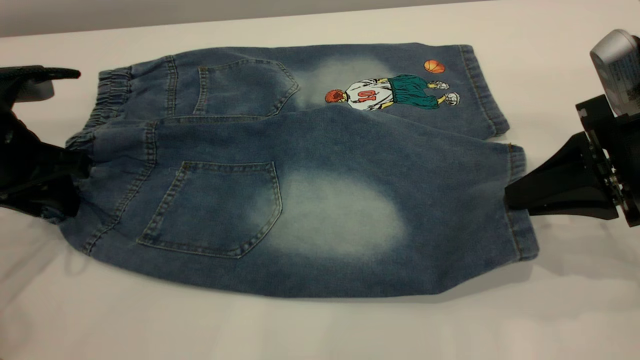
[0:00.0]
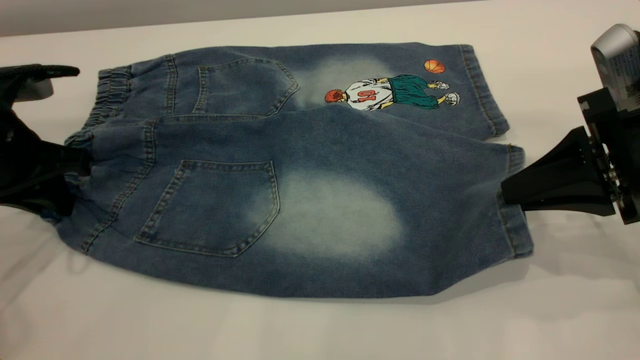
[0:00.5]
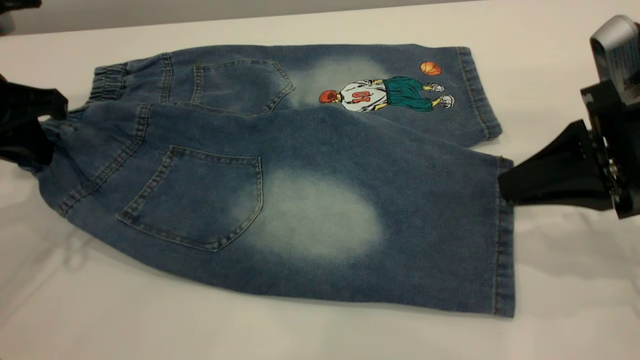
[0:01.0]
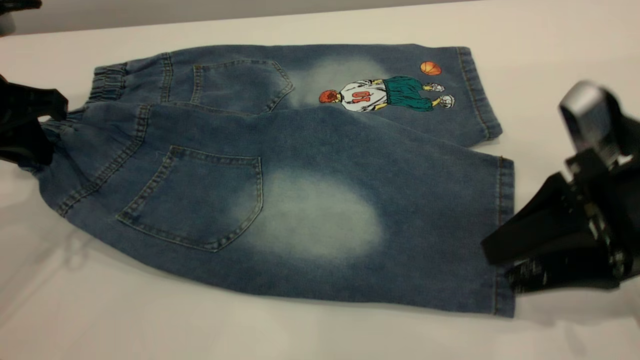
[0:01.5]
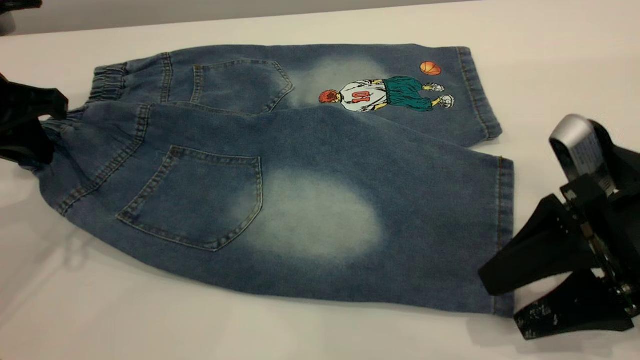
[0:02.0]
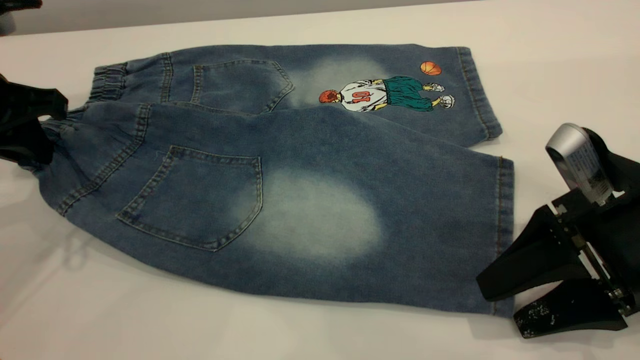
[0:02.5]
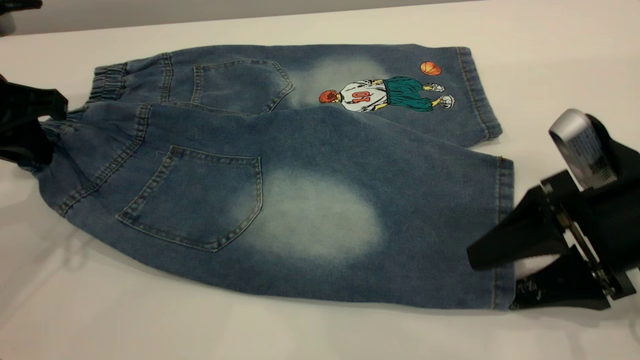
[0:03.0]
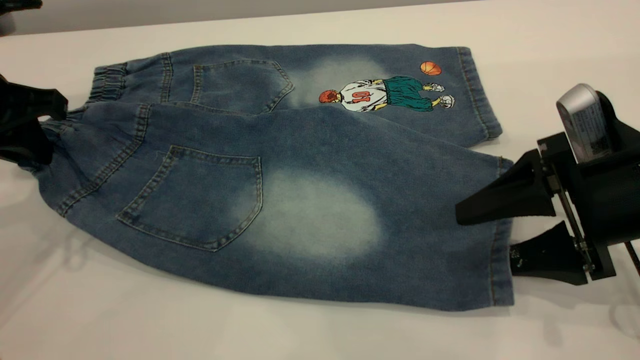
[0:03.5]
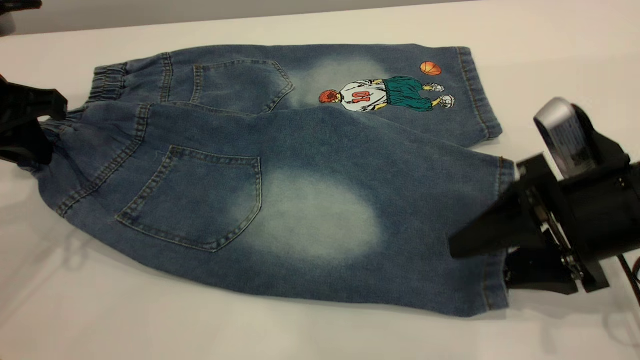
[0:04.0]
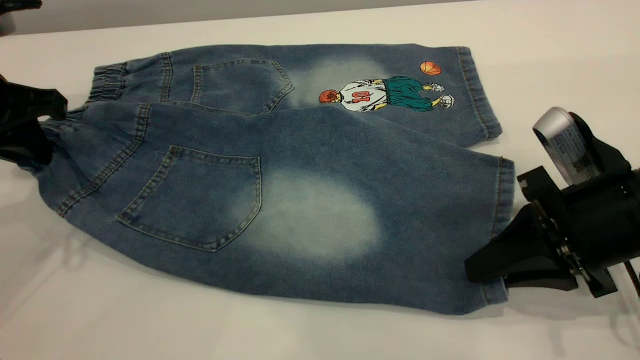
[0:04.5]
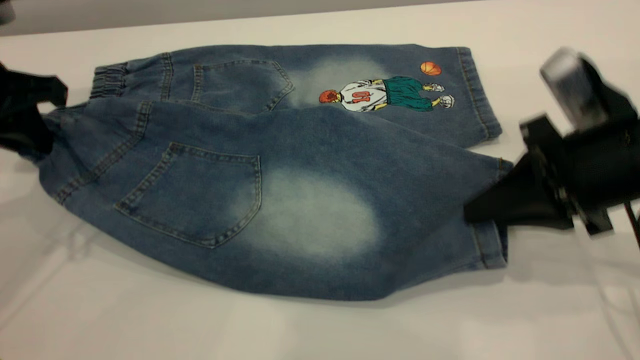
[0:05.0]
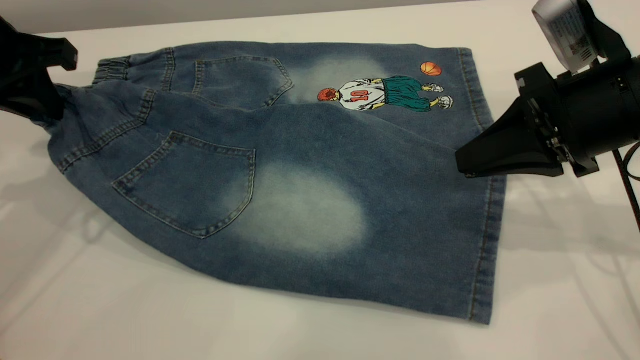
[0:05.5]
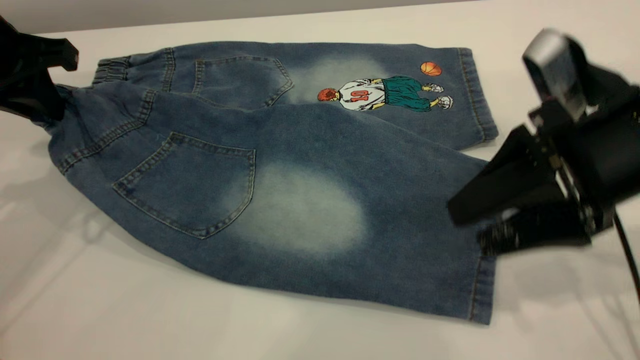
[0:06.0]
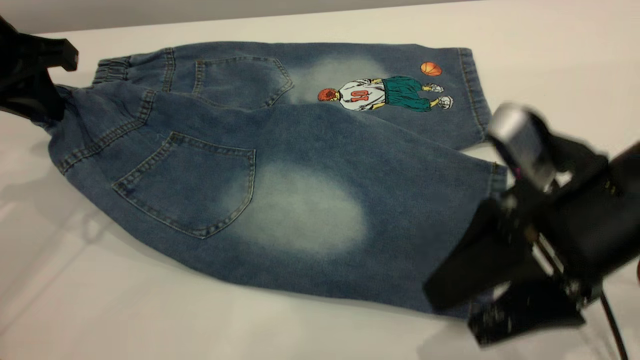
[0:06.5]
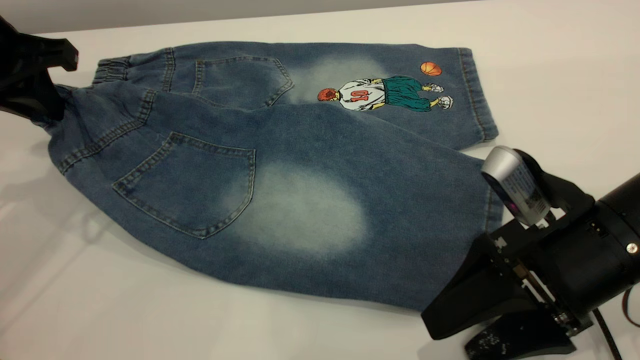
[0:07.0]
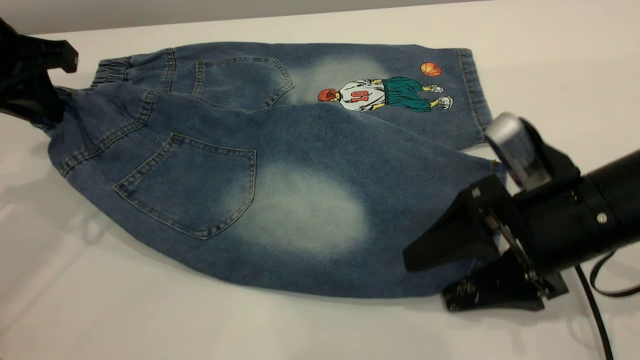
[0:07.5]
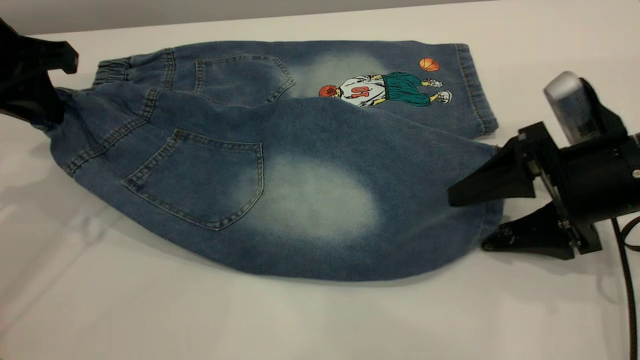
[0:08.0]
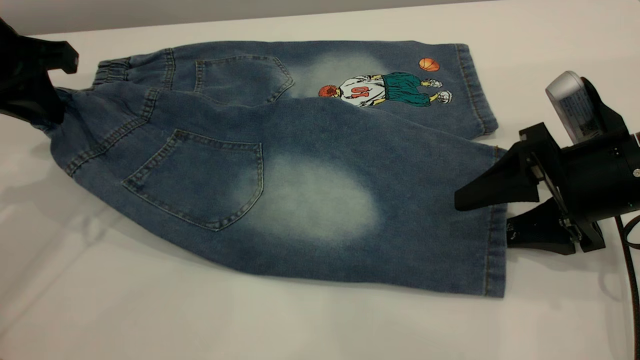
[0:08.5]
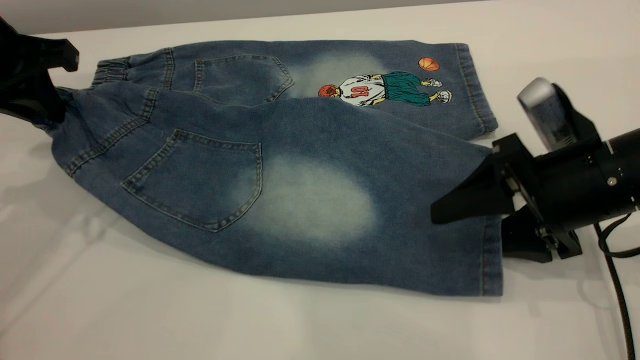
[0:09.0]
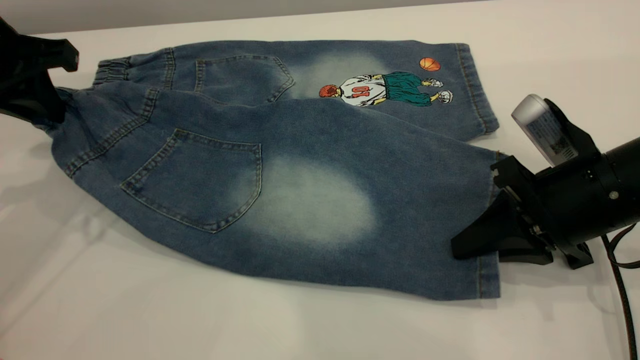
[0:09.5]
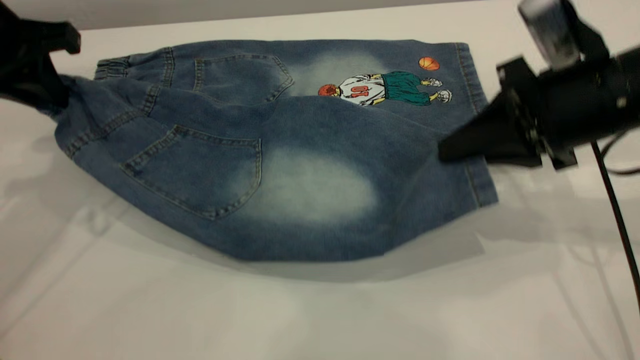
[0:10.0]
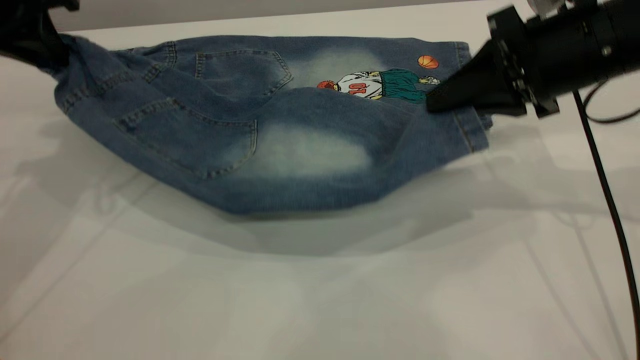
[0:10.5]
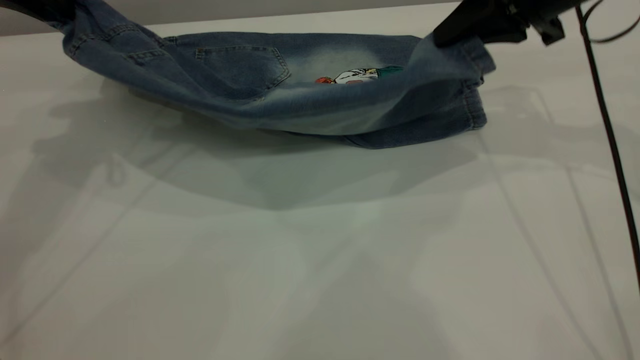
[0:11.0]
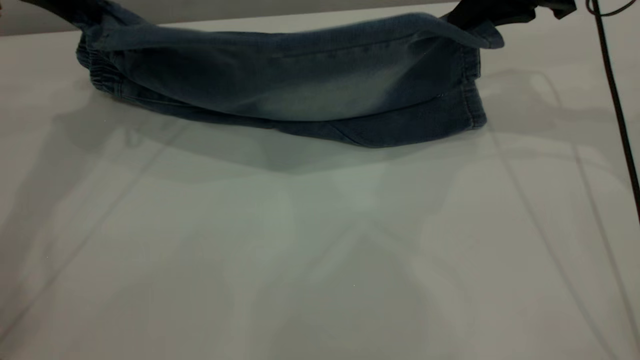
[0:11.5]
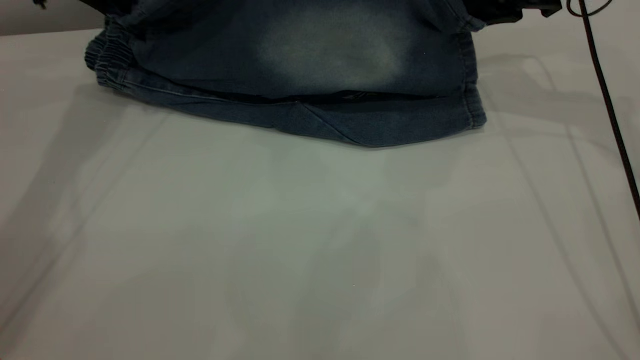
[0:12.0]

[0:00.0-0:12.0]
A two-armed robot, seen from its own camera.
0:00.0 to 0:02.0: The left gripper heads upward, covering about 5 cm, and closes up, while the right gripper moves some 5 cm, and opens.
0:02.0 to 0:04.0: The right gripper closes its fingers.
0:04.0 to 0:06.0: The right gripper travels upward by approximately 5 cm, and closes and opens again.
0:06.0 to 0:08.0: The right gripper travels downward by approximately 5 cm.
0:08.0 to 0:10.0: The right gripper moves upward, about 5 cm, and closes up.
0:10.0 to 0:12.0: Both grippers move forward, roughly 15 cm.

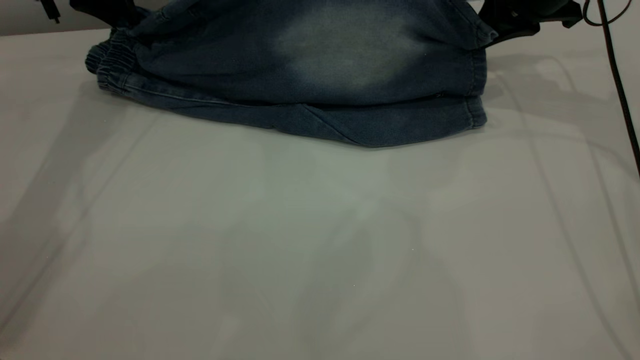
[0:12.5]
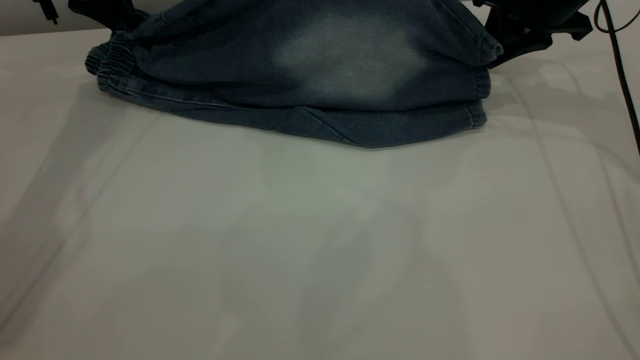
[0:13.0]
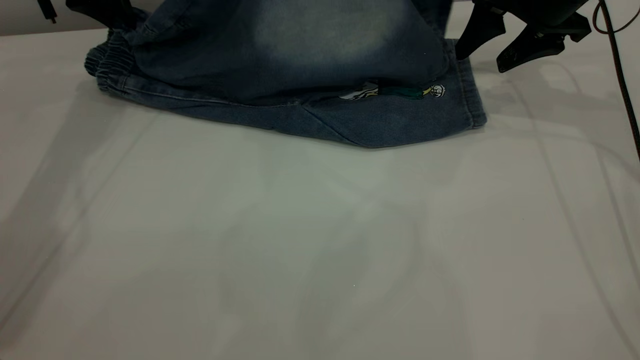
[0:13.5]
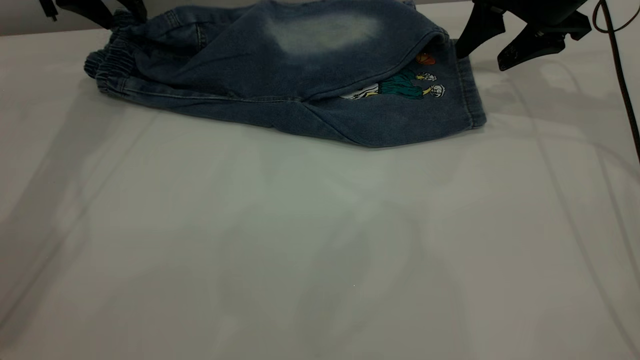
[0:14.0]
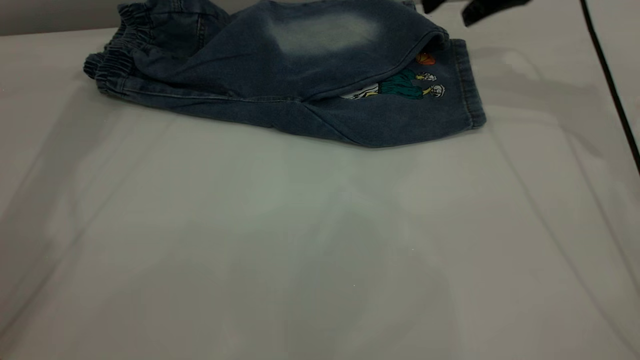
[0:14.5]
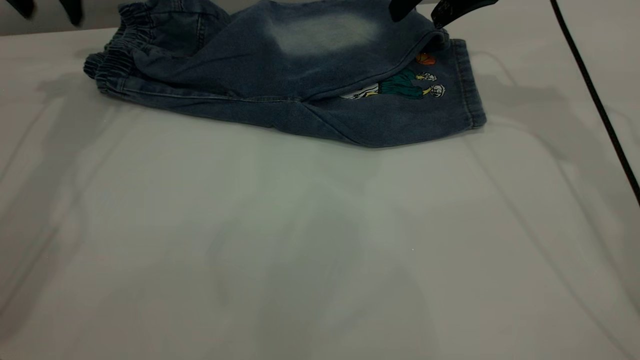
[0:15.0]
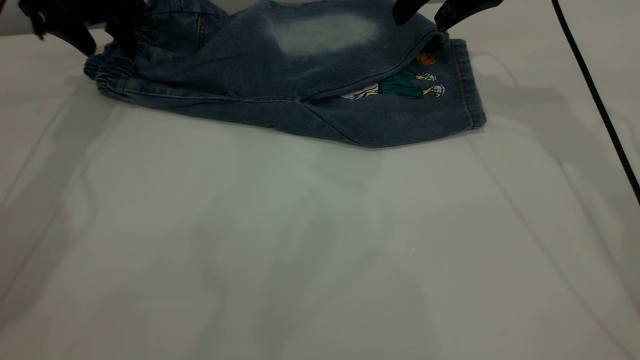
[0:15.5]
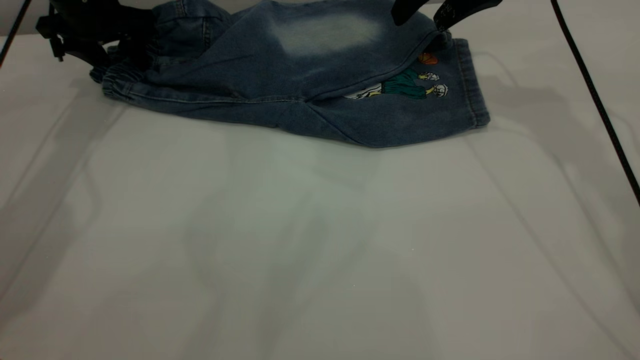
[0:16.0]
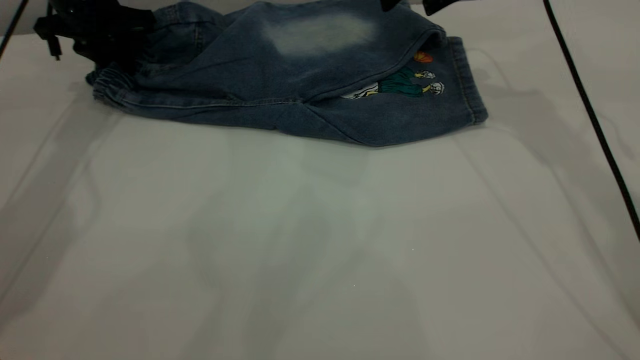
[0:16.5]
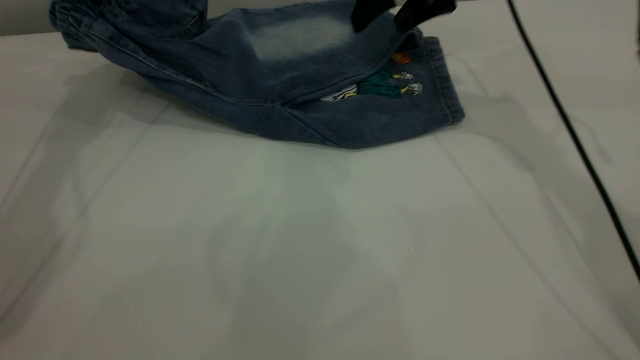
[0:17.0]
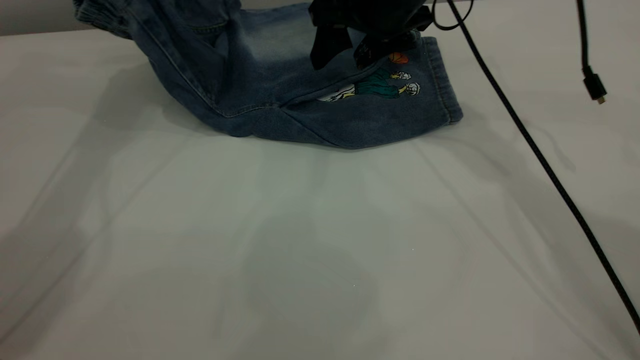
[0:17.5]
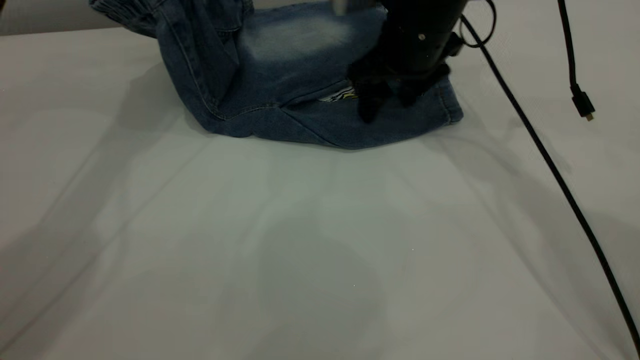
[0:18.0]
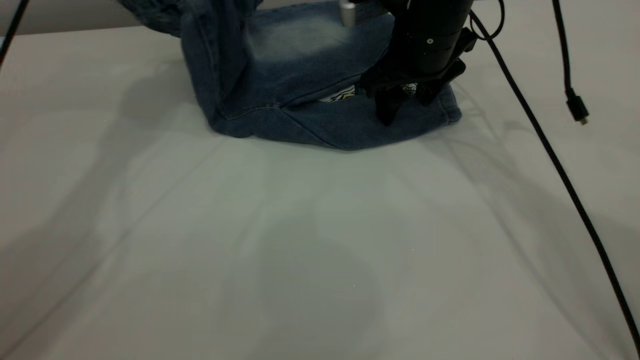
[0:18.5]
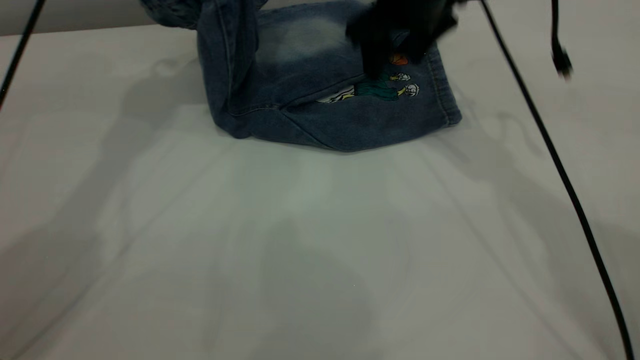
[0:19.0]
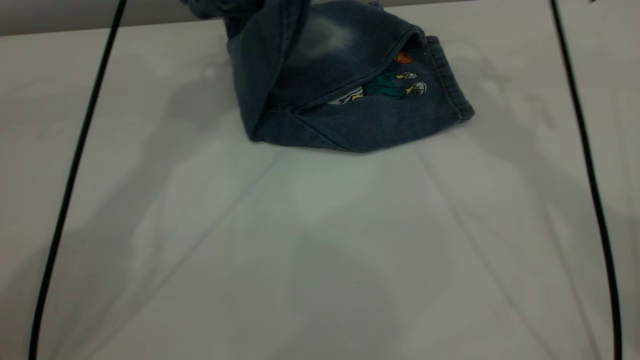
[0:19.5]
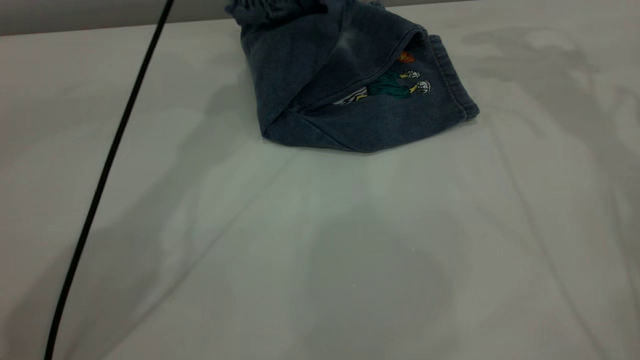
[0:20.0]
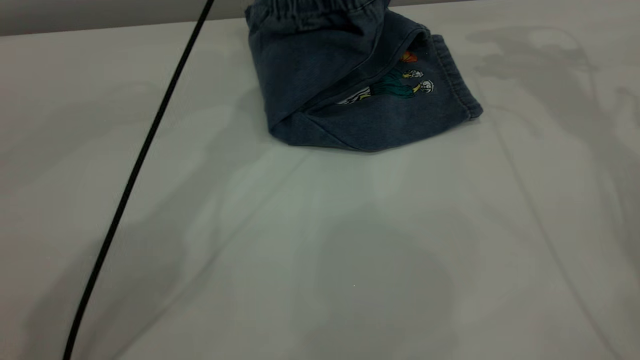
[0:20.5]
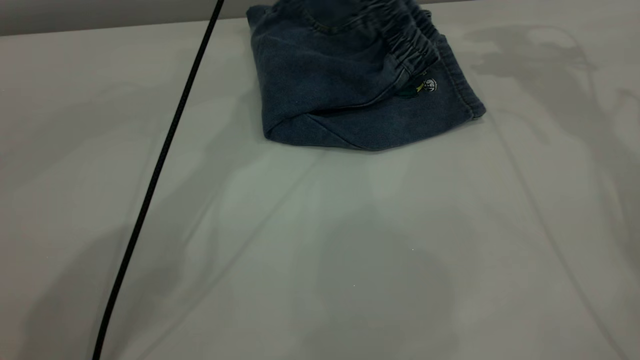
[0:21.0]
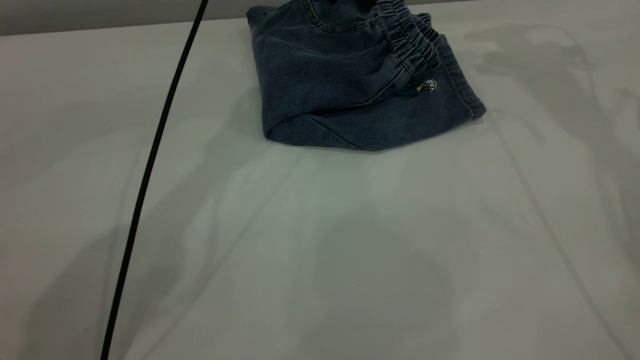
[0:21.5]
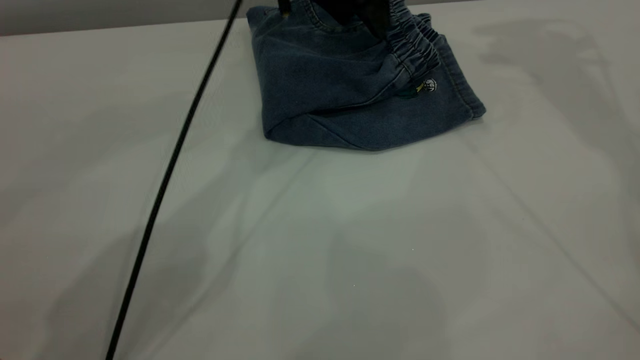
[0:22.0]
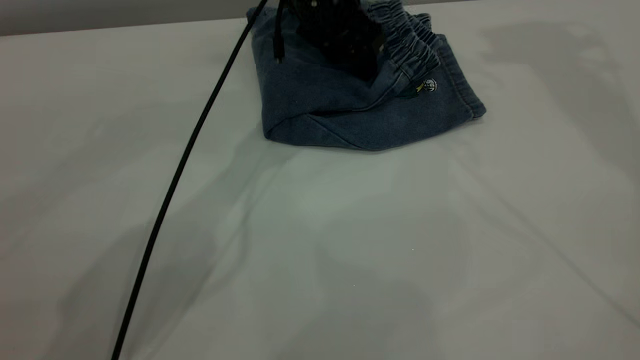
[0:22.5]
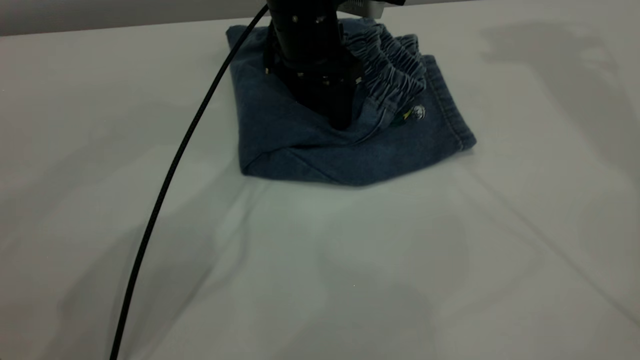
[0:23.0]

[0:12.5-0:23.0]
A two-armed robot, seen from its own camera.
Step, 0:14.5 to 0:21.0: Fold the pants from left to right.
0:12.5 to 0:14.5: The right gripper changes place by roughly 5 cm, and opens its fingers. Meanwhile the left gripper heads upward, covering approximately 10 cm, and opens.
0:14.5 to 0:16.5: The left gripper heads downward, covering about 10 cm, and closes its fingers.
0:16.5 to 0:19.0: The left gripper heads upward and to the right, covering roughly 20 cm; the right gripper is displaced to the left by roughly 5 cm, and travels downward and back again, about 10 cm each way.
0:19.0 to 0:21.0: The left gripper travels to the right by about 15 cm, and opens. The right gripper is displaced to the right and upward by roughly 15 cm.
0:21.0 to 0:23.0: The left gripper shifts roughly 10 cm downward and backward, while the right gripper shifts roughly 20 cm upward.
